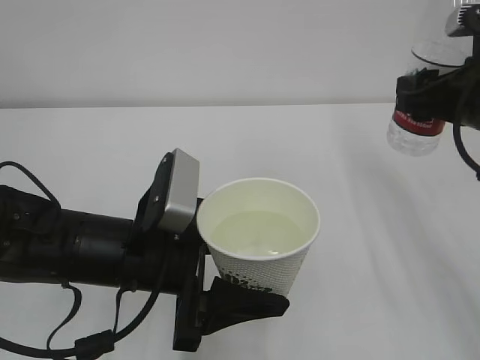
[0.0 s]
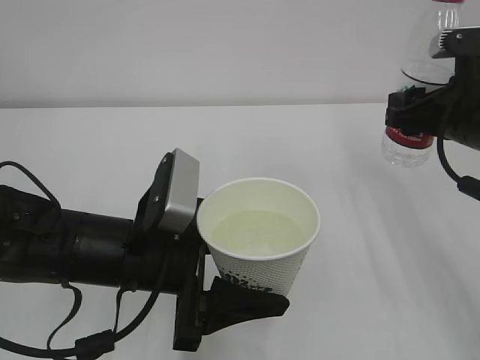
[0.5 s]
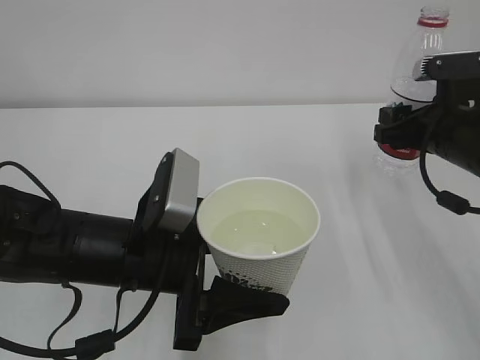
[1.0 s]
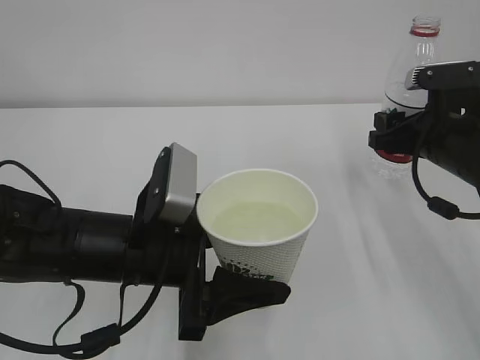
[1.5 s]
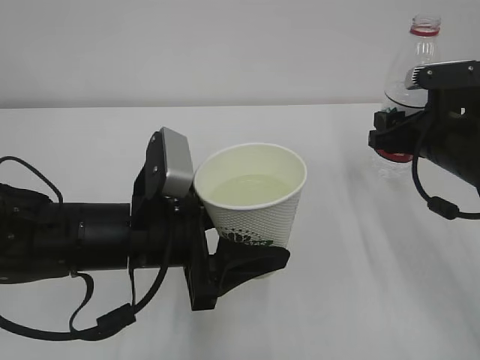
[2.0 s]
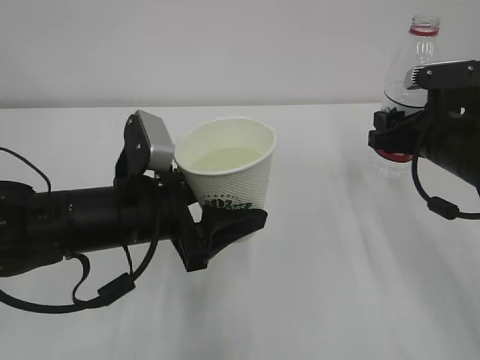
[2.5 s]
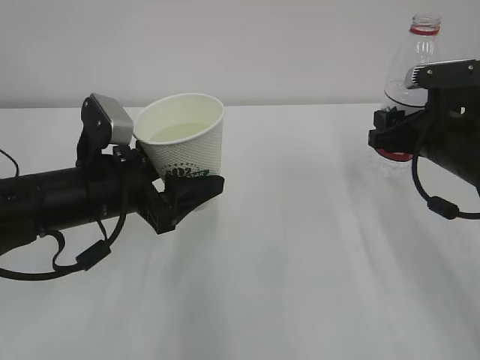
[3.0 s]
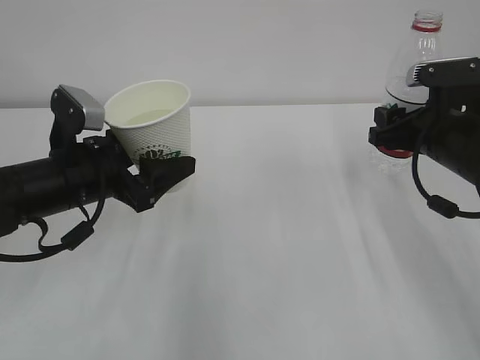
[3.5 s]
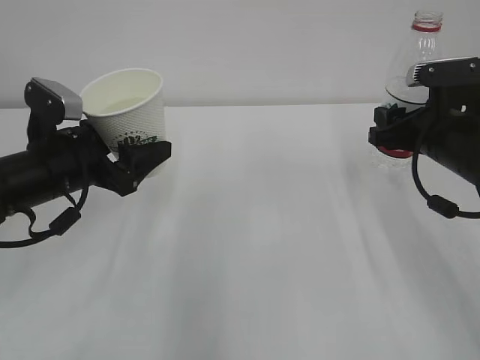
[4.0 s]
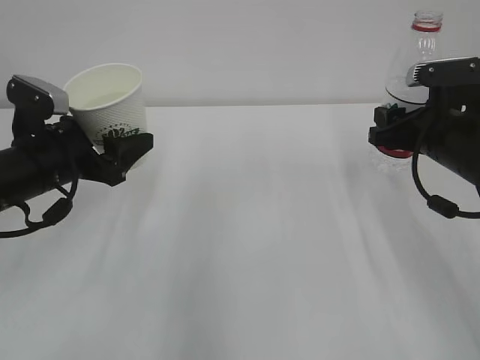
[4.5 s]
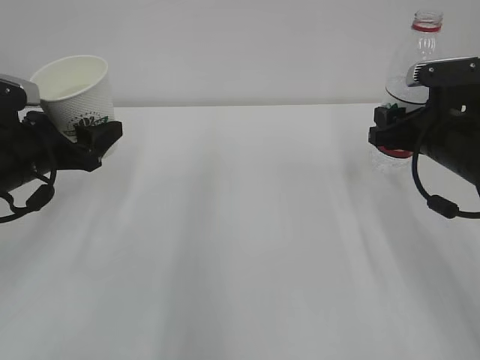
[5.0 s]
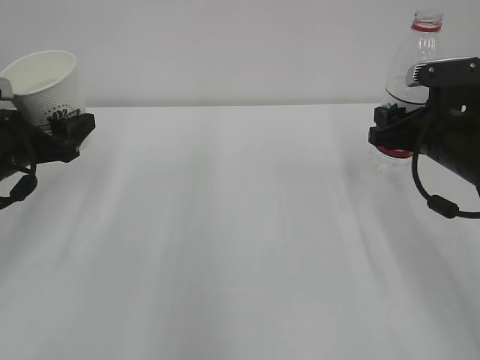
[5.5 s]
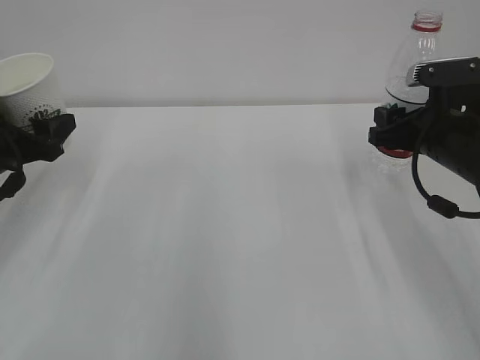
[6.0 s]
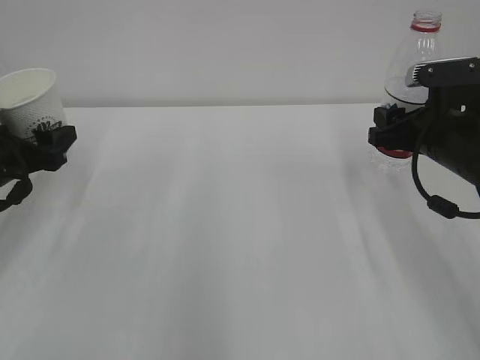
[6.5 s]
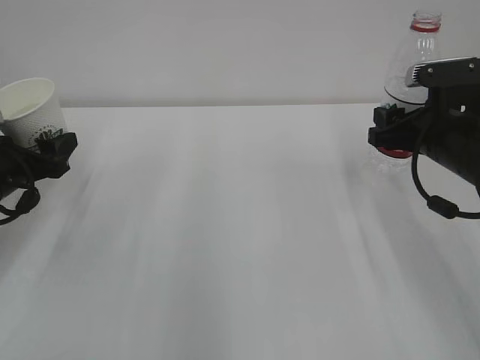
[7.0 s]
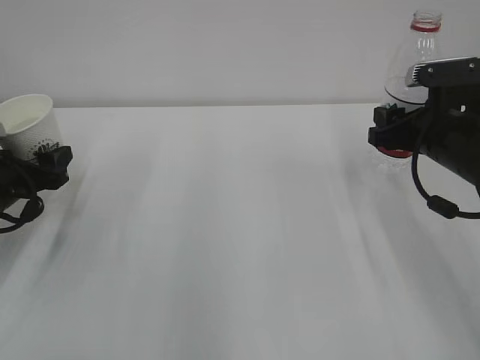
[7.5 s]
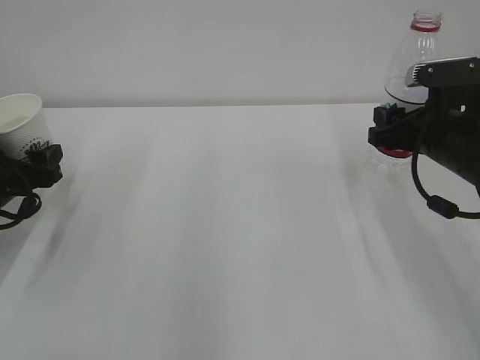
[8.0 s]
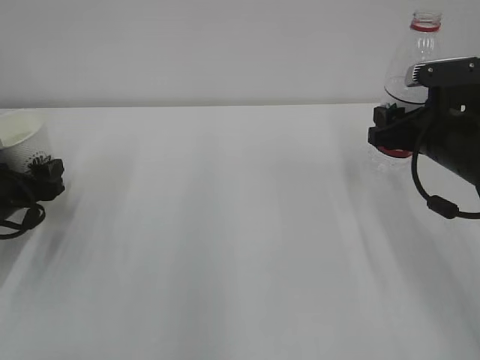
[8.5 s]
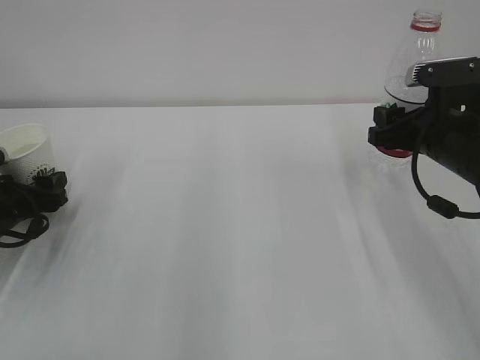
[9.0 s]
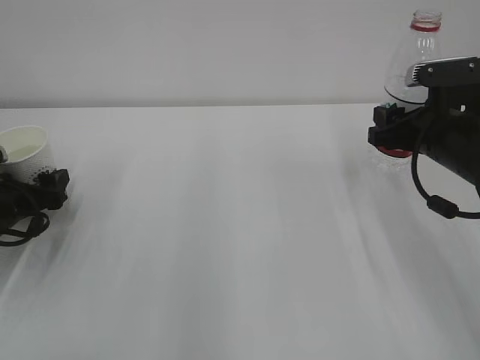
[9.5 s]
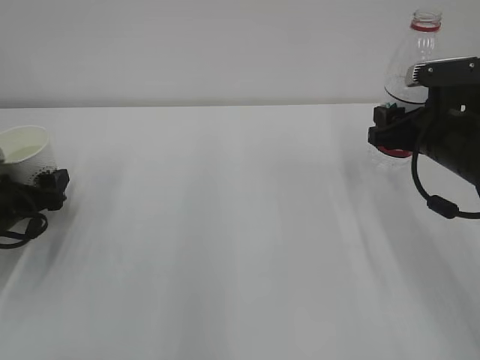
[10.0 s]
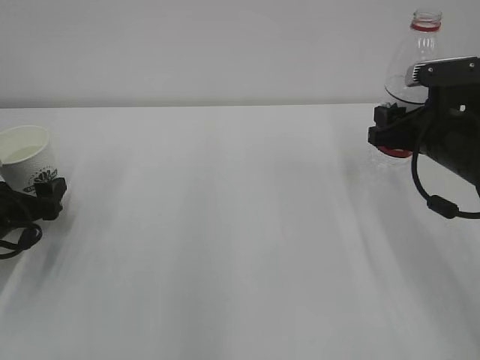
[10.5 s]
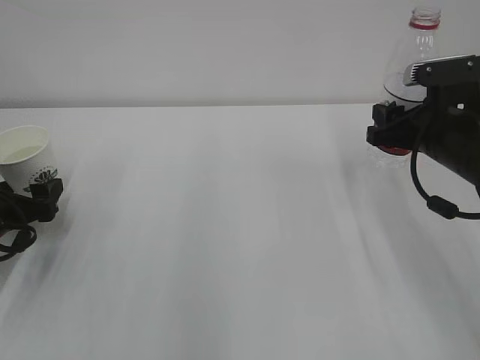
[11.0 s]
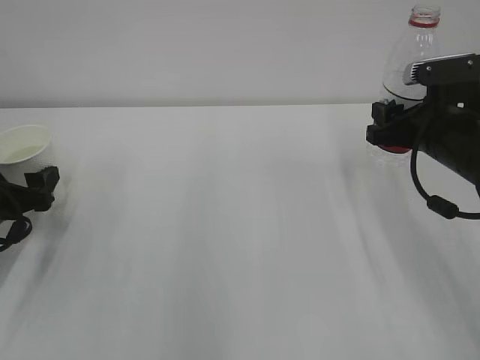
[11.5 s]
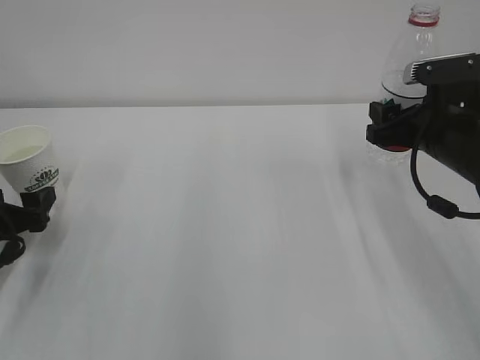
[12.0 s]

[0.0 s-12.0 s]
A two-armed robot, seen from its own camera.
0.0 to 2.0 s: The right gripper is displaced downward by approximately 5 cm.
2.0 to 4.0 s: The left gripper heads to the left and forward, covering some 15 cm.
4.0 to 6.0 s: The left gripper travels to the left by approximately 10 cm.
6.0 to 8.0 s: The left gripper moves downward, roughly 5 cm.
8.0 to 10.0 s: The left gripper opens up.
10.0 to 12.0 s: The left gripper changes place by some 5 cm.

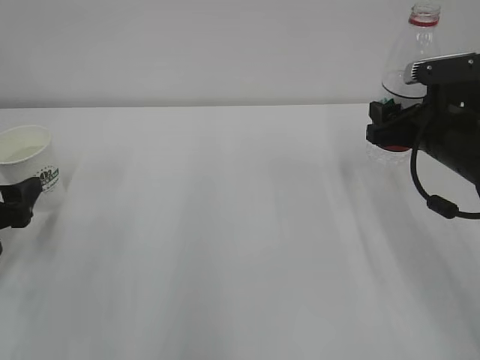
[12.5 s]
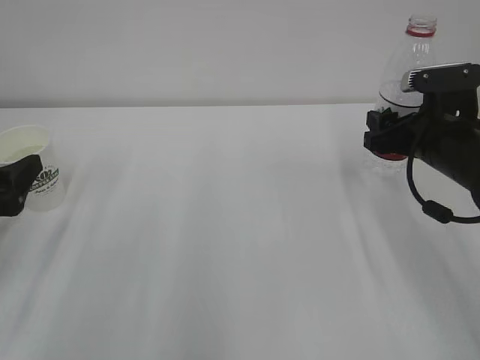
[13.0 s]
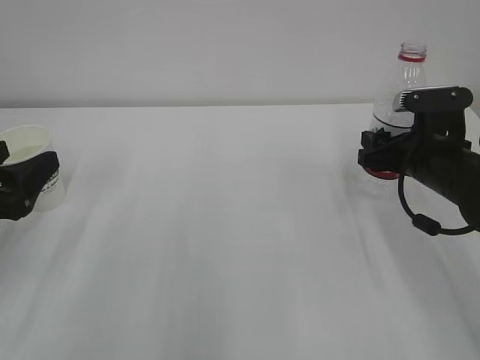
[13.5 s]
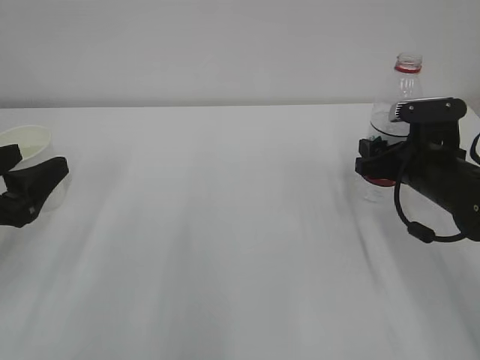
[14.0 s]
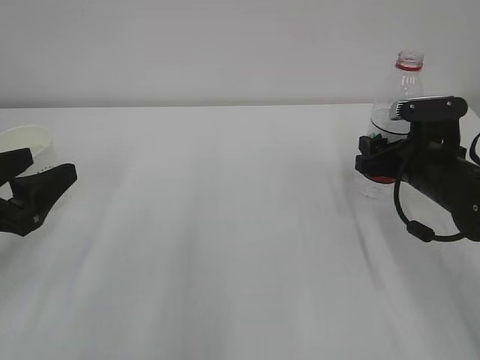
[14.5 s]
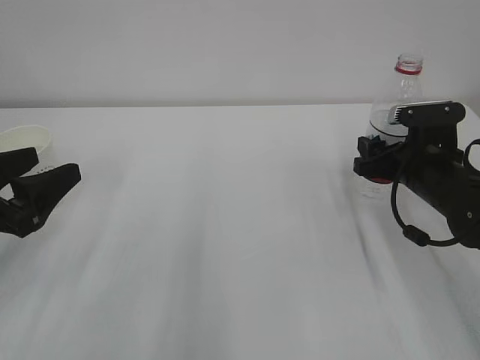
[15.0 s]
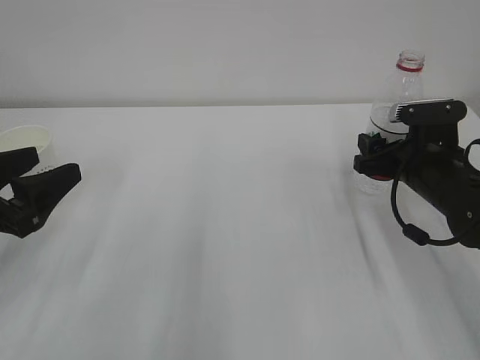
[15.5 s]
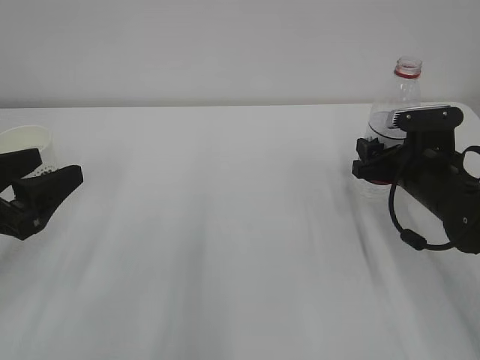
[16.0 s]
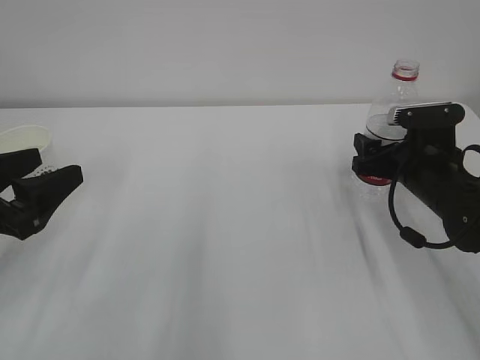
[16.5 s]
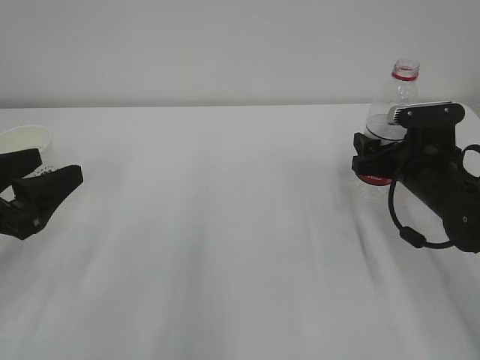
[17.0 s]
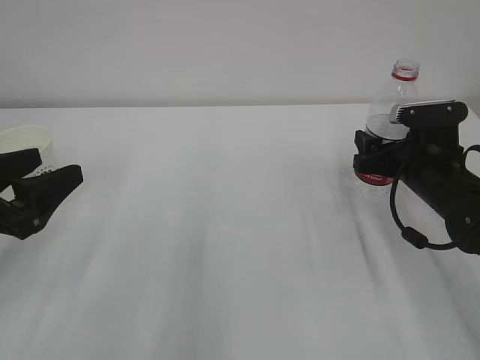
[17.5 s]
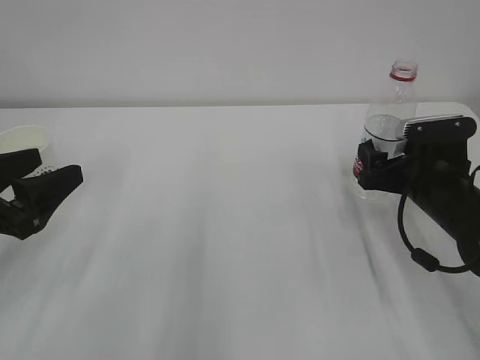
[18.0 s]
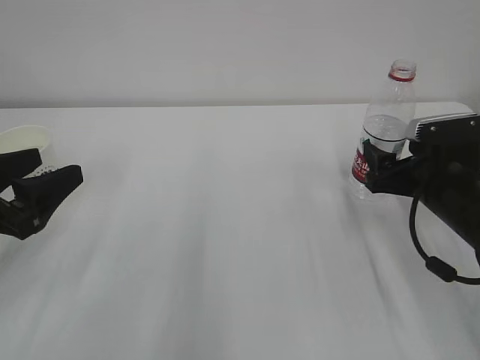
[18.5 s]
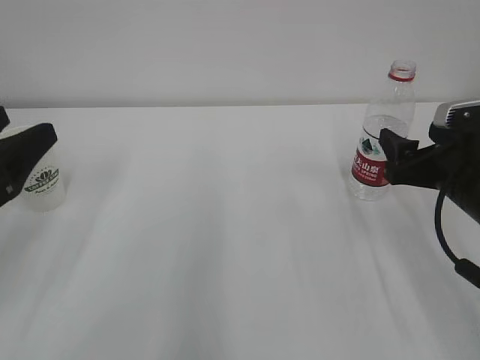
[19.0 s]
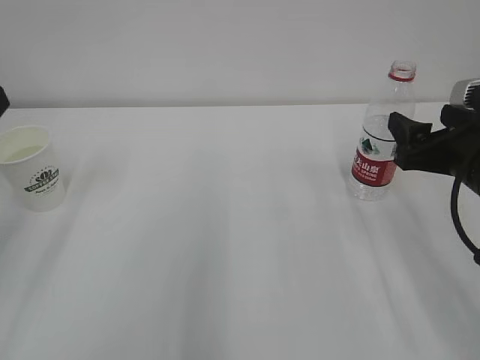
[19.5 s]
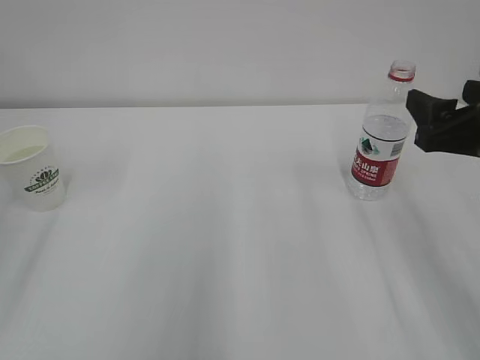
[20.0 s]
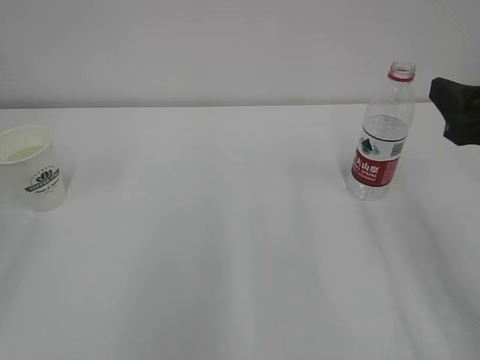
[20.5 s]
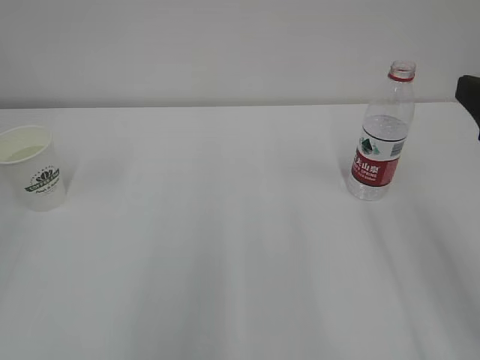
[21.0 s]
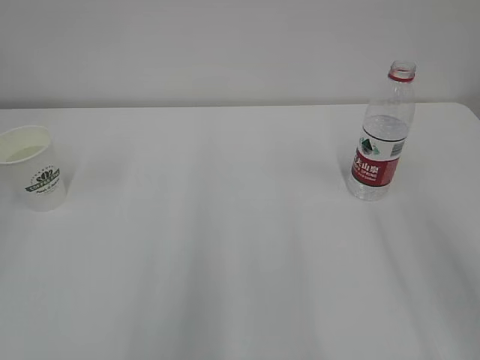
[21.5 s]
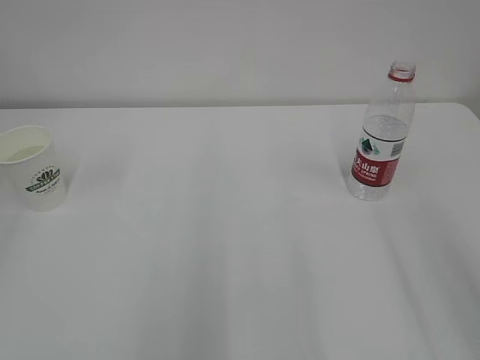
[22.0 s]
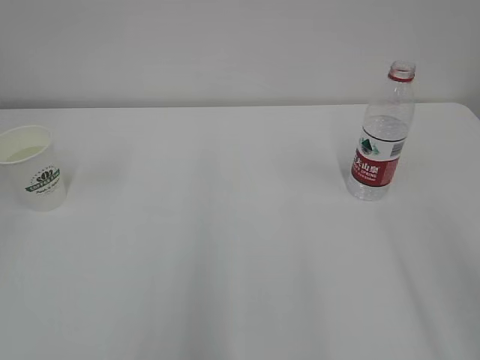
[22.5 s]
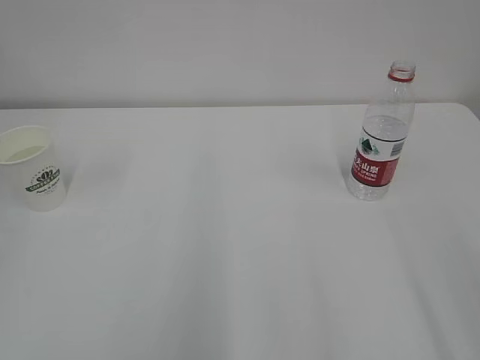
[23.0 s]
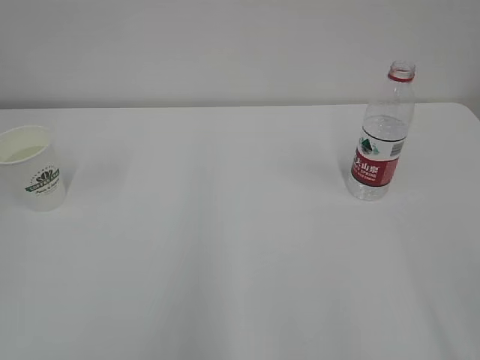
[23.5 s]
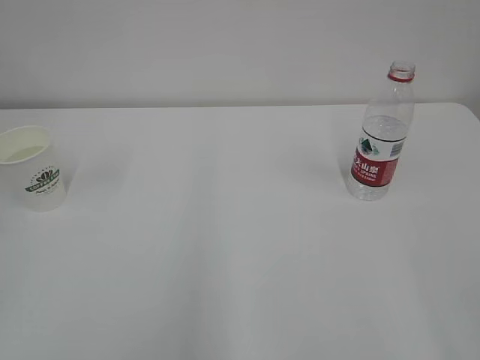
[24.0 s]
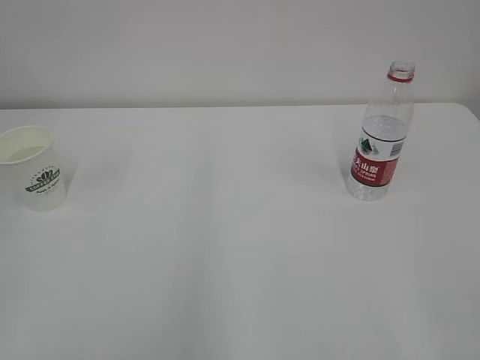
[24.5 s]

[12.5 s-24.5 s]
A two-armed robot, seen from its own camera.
12.5 to 14.5 s: The right gripper moves downward, approximately 5 cm. Meanwhile the left gripper heads upward, covering approximately 5 cm.
14.5 to 16.5 s: The right gripper opens its fingers.
16.5 to 18.5 s: The grippers make only small movements.
18.5 to 20.5 s: Both grippers travel together upward and backward, about 15 cm.
20.5 to 22.5 s: The right gripper moves backward, roughly 15 cm.

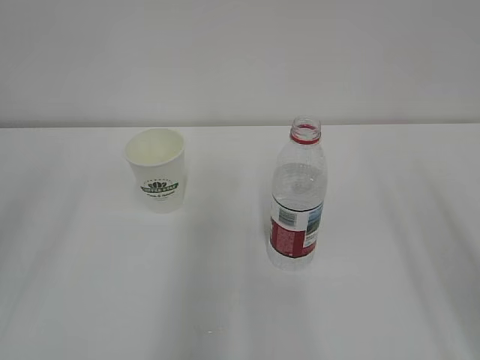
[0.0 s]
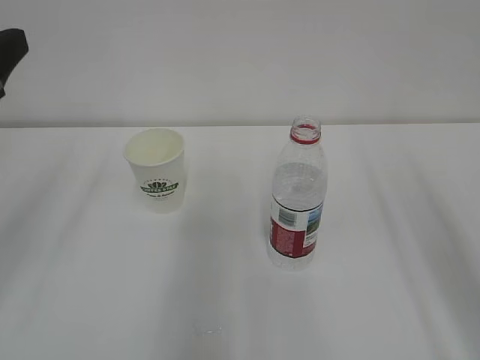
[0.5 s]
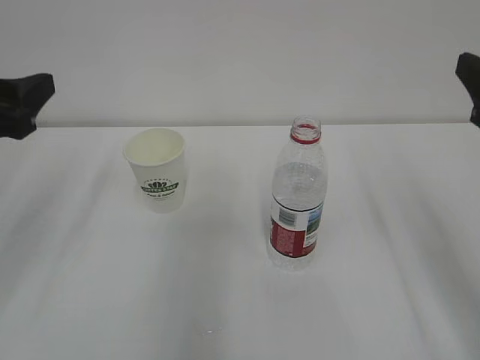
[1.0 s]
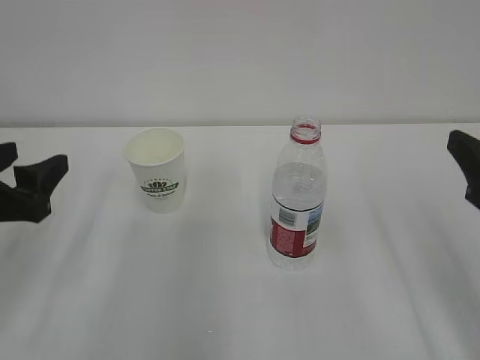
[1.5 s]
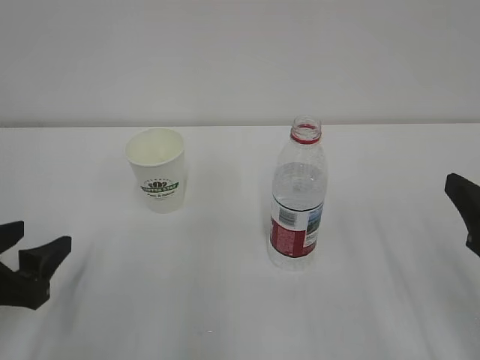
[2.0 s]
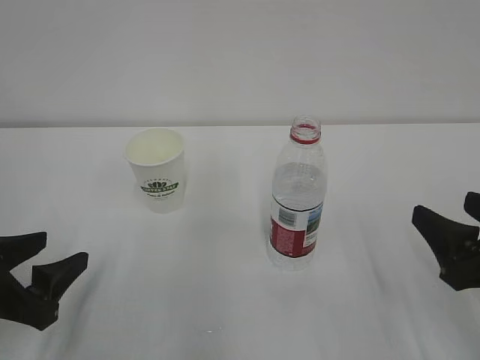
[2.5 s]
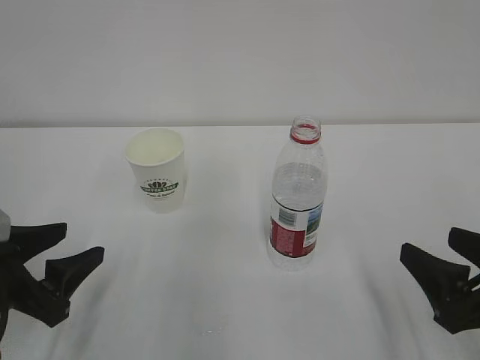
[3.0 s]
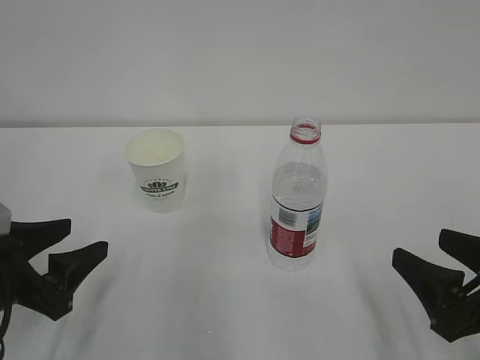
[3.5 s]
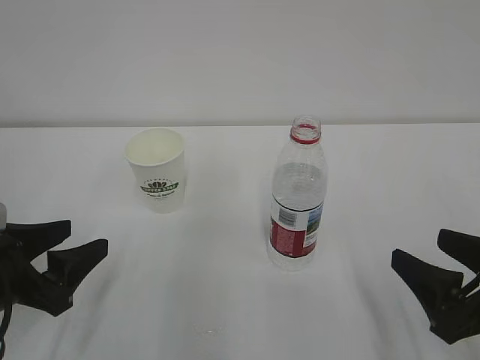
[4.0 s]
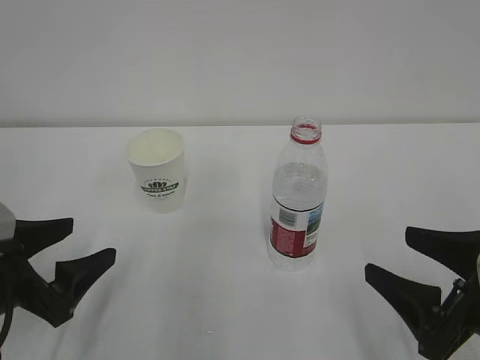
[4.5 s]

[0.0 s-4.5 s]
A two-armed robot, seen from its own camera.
0.0 to 2.0 s: The two grippers go some 20 cm downward.
2.0 to 4.5 s: The right gripper moves downward, some 5 cm. The left gripper opens its fingers.
